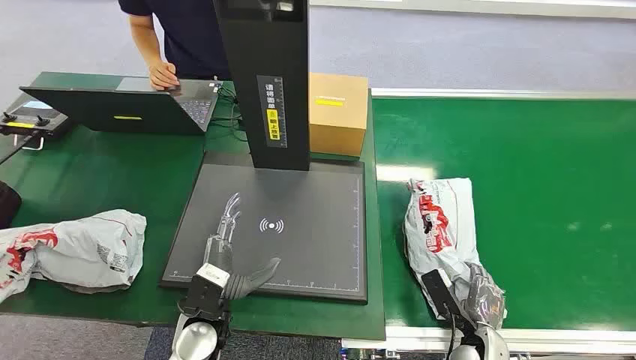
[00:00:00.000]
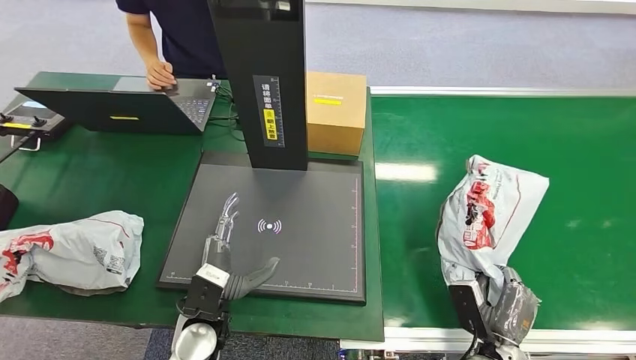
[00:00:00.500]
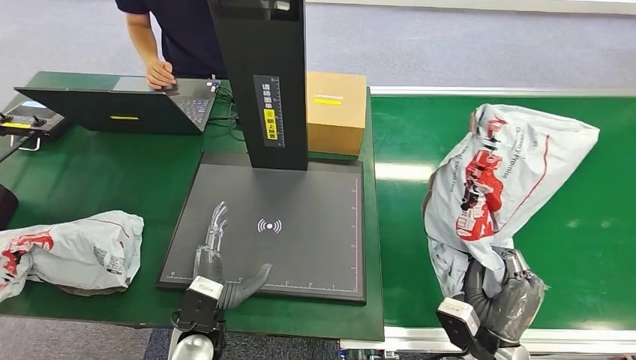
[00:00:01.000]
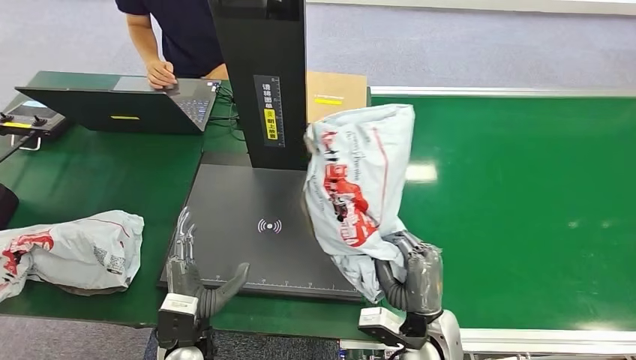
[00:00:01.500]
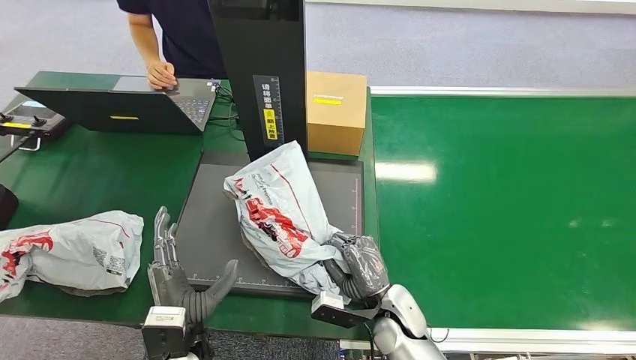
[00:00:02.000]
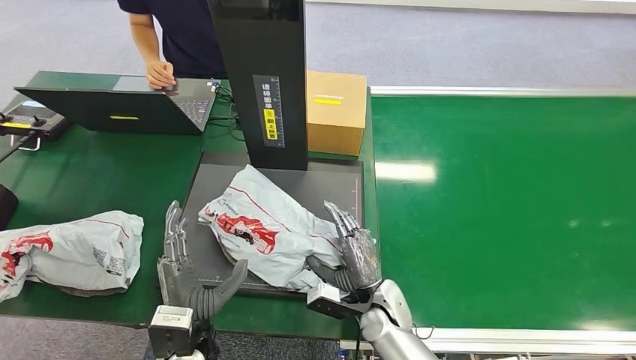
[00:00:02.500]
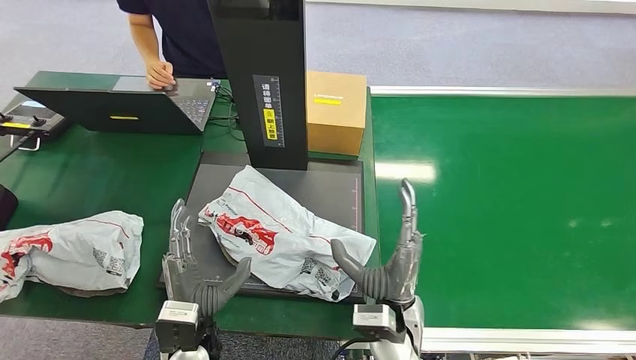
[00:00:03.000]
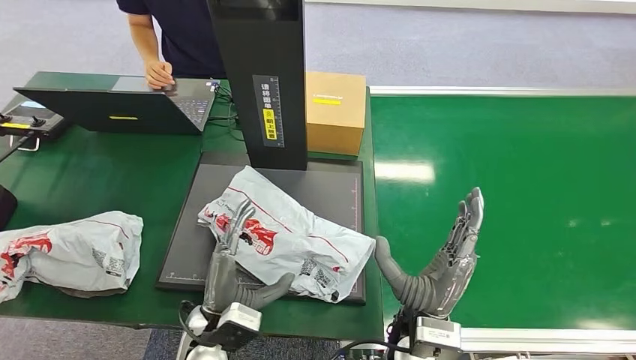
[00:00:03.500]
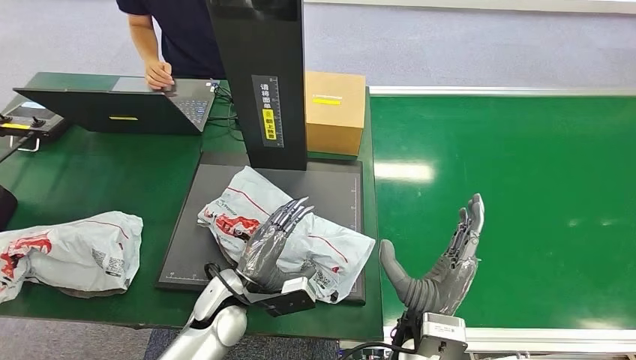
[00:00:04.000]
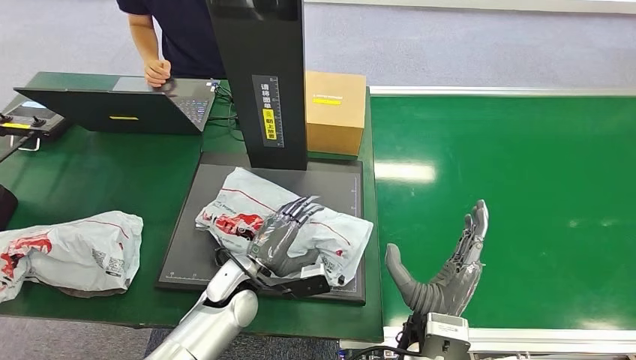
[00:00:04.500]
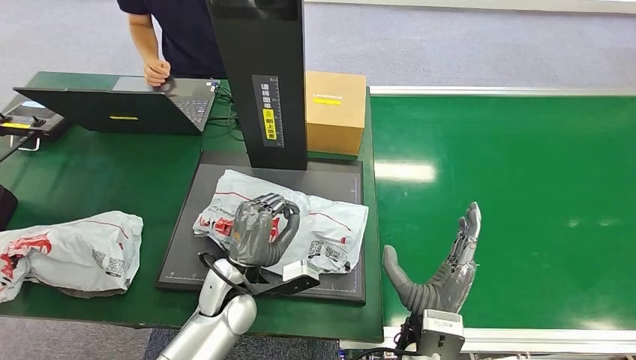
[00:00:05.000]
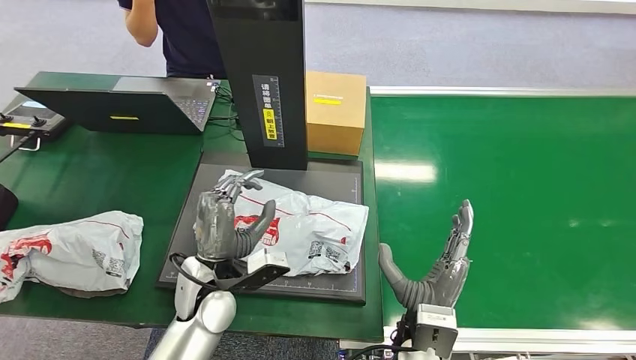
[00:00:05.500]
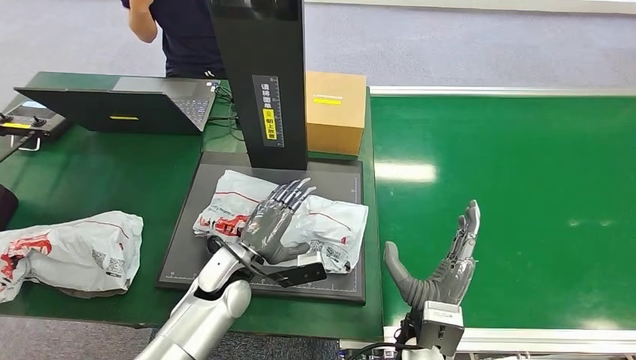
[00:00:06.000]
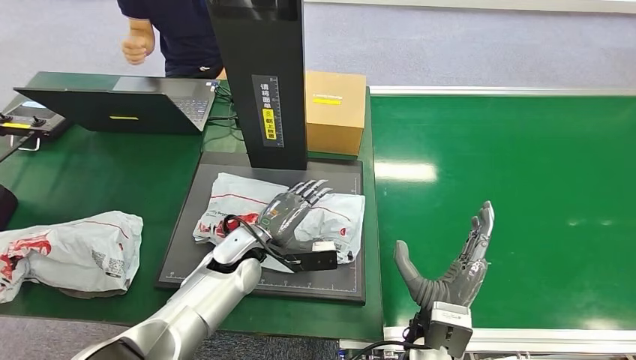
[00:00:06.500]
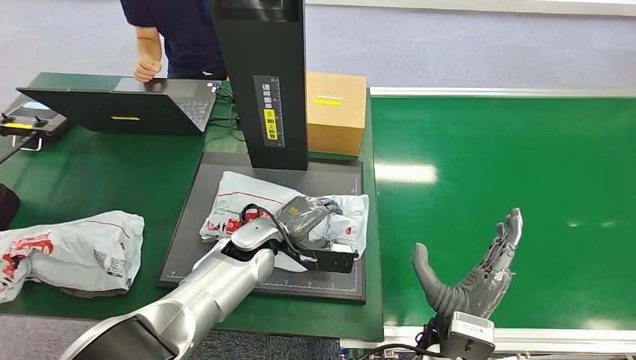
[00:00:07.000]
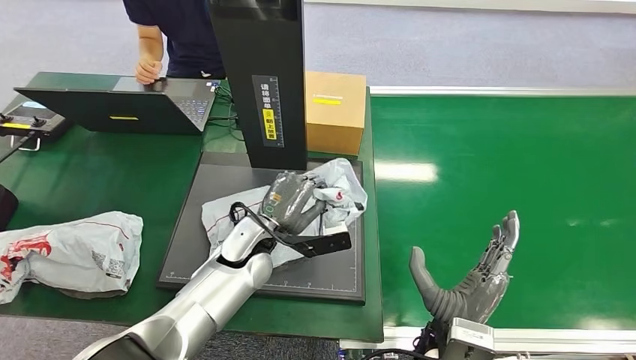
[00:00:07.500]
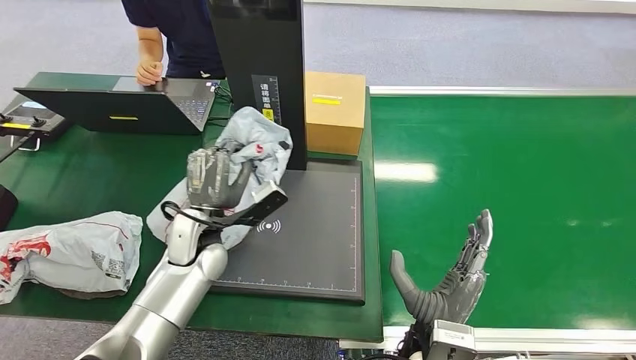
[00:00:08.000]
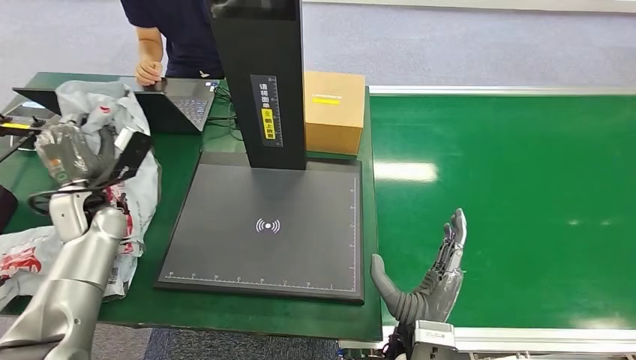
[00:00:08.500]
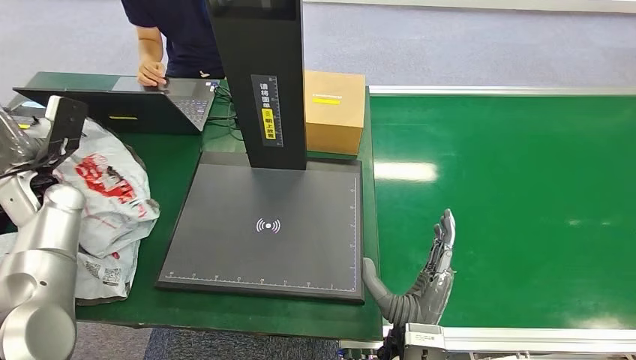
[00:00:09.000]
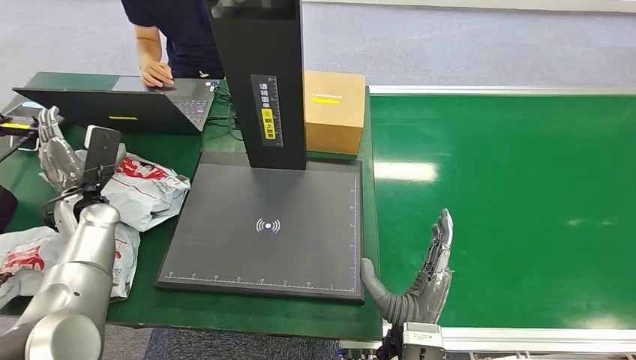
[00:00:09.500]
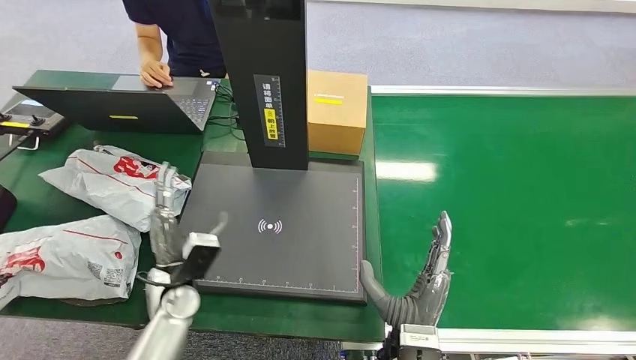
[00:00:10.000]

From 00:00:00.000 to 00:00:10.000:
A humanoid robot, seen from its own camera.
Step, from 00:00:00.000 to 00:00:01.000: Pick up the package from the conveyor belt.
Step, from 00:00:01.500 to 00:00:04.000: Place the package onto the inbound machine.
Step, from 00:00:04.500 to 00:00:08.000: Pick up the package from the inbound machine.
Step, from 00:00:08.500 to 00:00:10.000: Place the package into the parcel locker.
From 00:00:02.000 to 00:00:04.000: The right hand goes some 10 cm upward and backward, while the left hand moves forward, some 10 cm.
From 00:00:06.000 to 00:00:08.000: The left hand moves upward, some 5 cm.

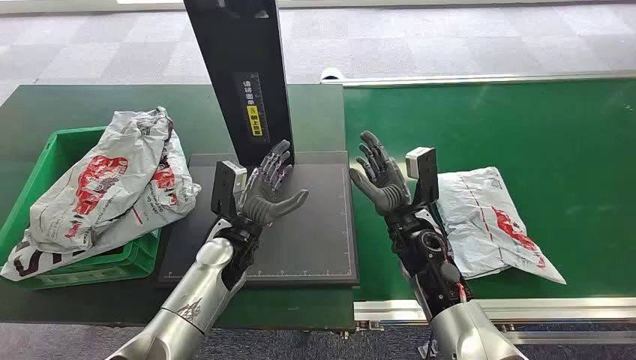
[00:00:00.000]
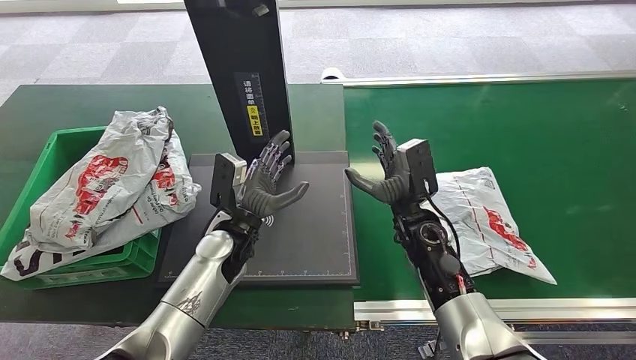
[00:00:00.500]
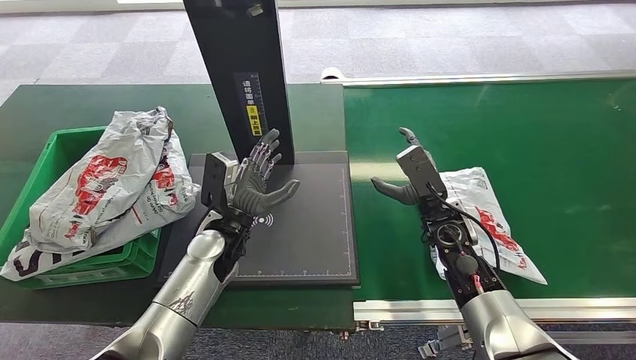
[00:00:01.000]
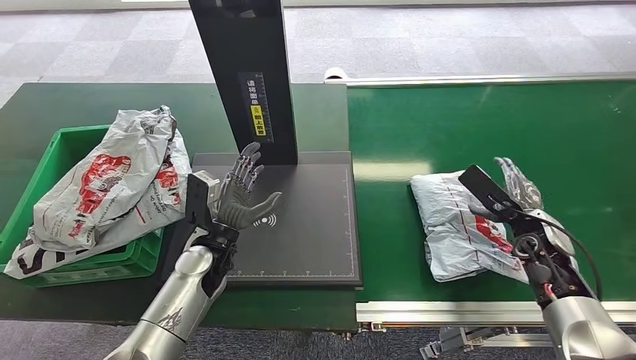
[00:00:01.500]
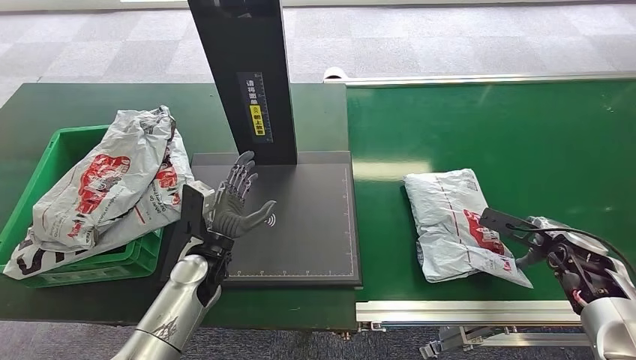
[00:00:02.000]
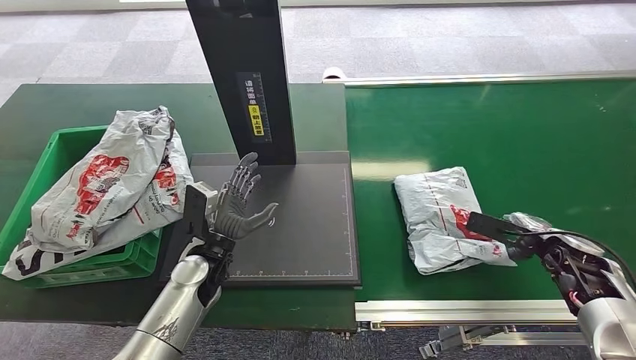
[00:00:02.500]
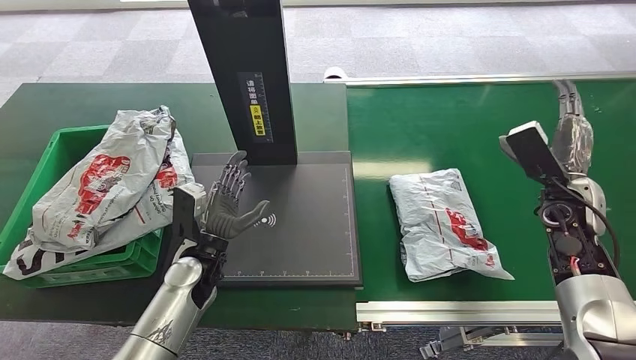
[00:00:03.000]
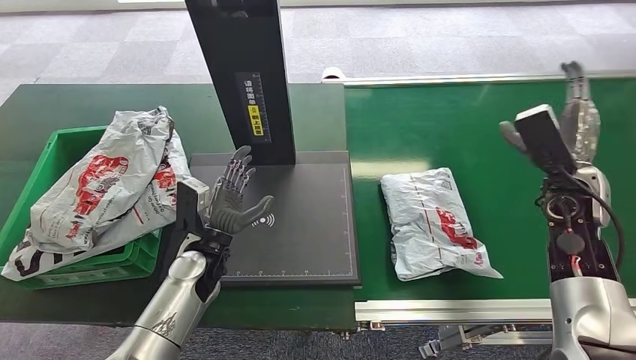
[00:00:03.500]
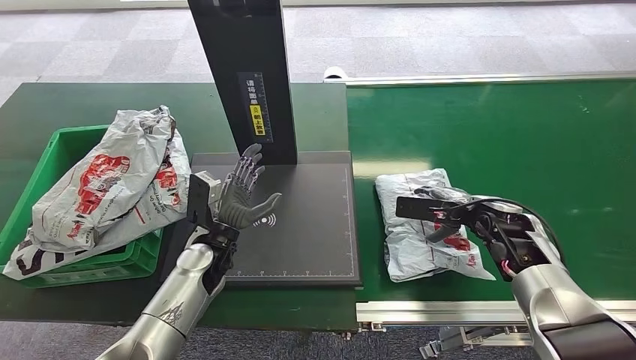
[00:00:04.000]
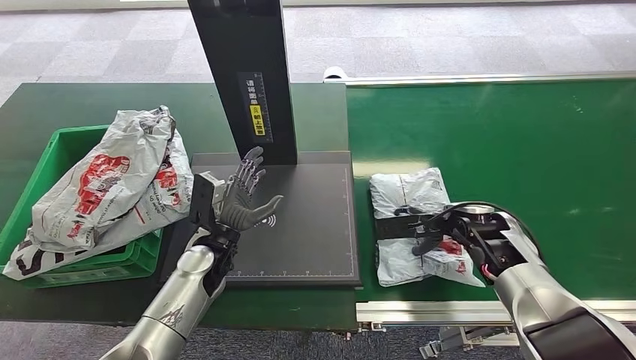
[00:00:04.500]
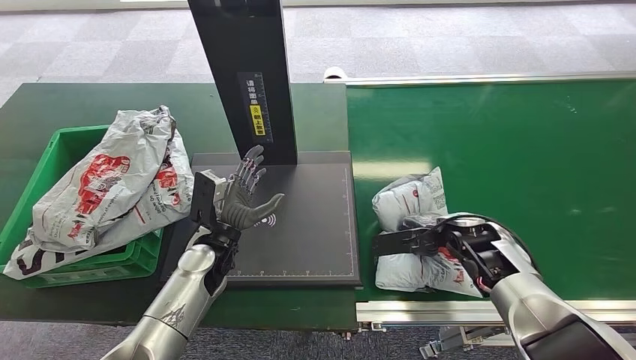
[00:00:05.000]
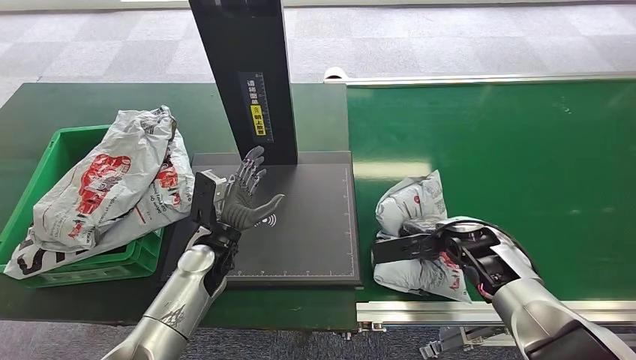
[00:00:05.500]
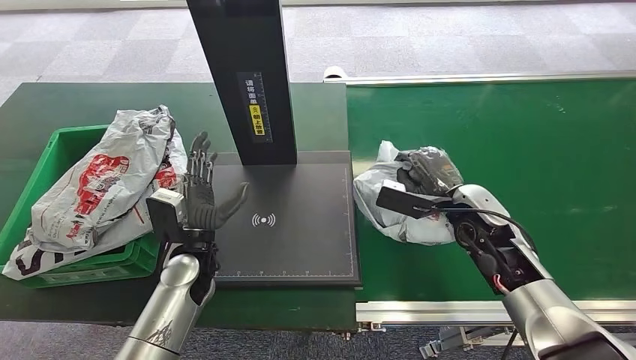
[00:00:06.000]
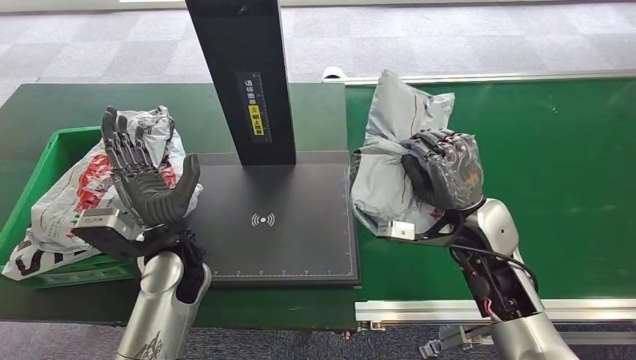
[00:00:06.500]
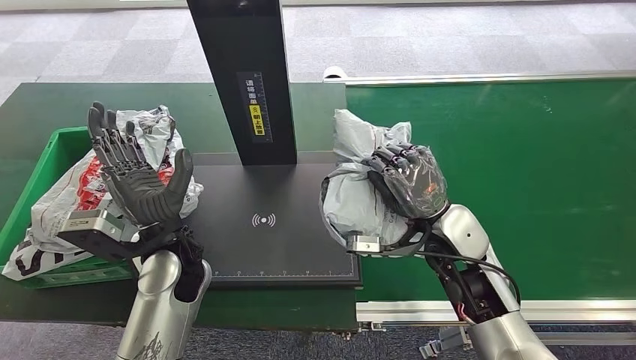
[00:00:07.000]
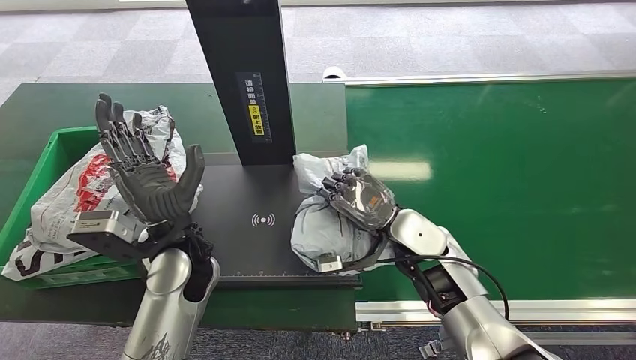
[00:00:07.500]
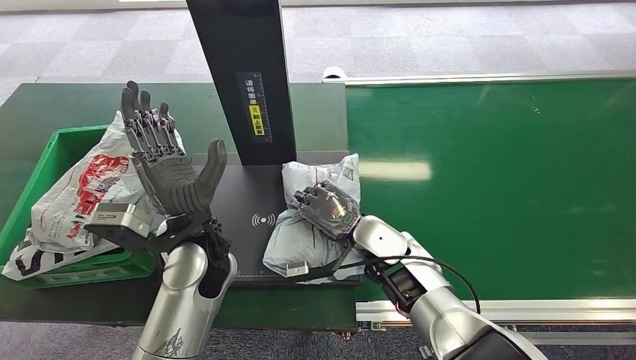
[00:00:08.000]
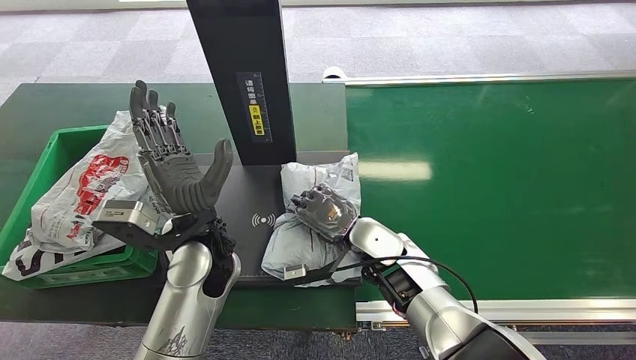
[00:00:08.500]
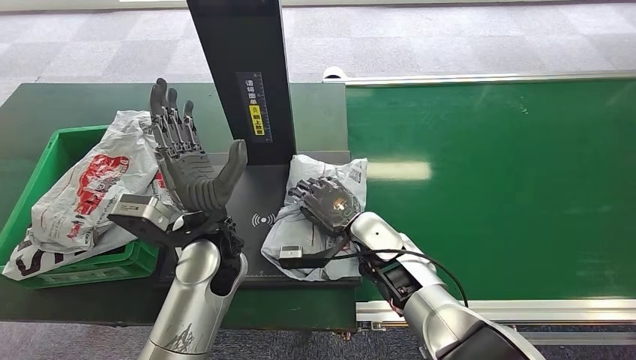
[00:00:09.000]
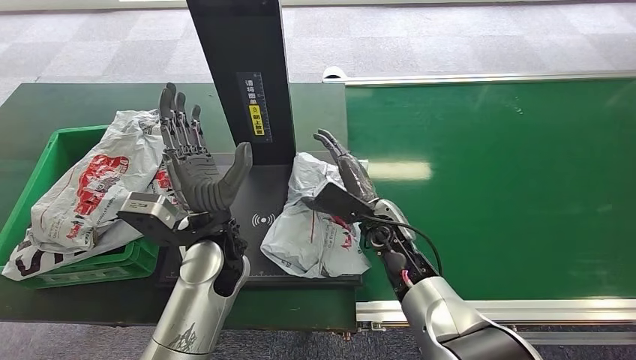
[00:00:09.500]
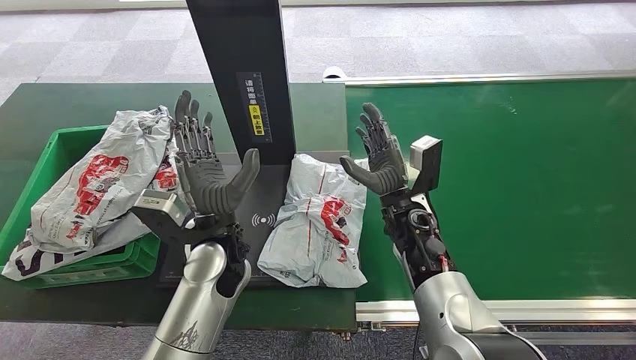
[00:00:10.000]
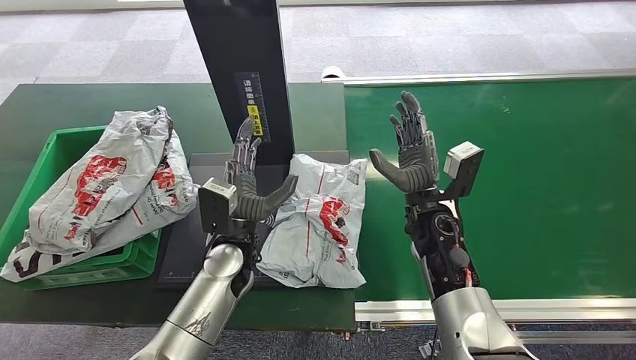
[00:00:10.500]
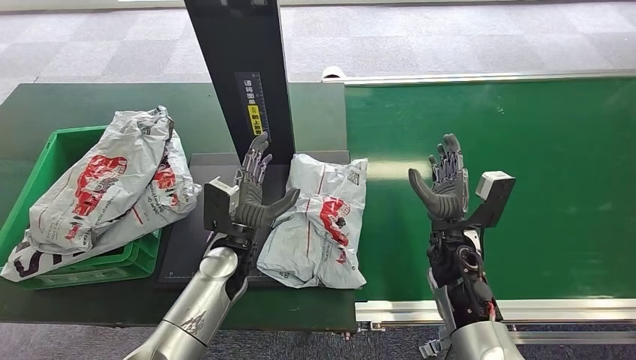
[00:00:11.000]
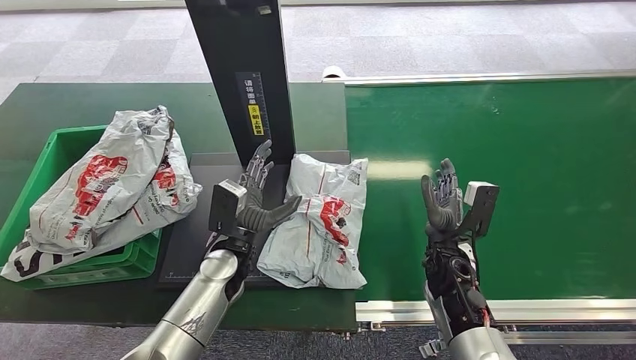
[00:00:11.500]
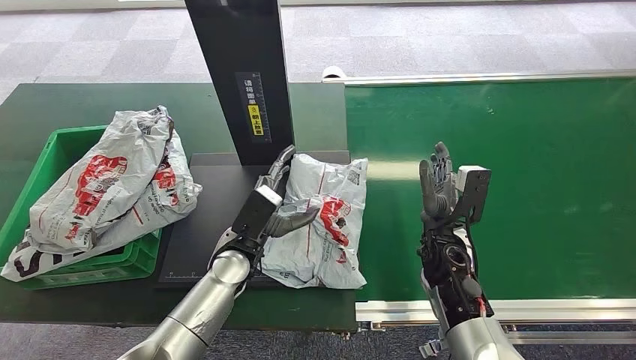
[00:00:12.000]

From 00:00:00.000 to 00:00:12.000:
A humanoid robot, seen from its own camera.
Step, from 00:00:00.000 to 00:00:06.000: Pick up the package from the conveyor belt.
Step, from 00:00:06.500 to 00:00:09.500: Place the package onto the inbound machine.
From 00:00:02.000 to 00:00:04.000: The right hand heads to the left and forward, covering roughly 15 cm.
From 00:00:04.000 to 00:00:06.000: The right hand moves approximately 5 cm.
From 00:00:10.000 to 00:00:12.000: The left hand travels downward by about 10 cm; the right hand heads to the right, covering approximately 5 cm.
